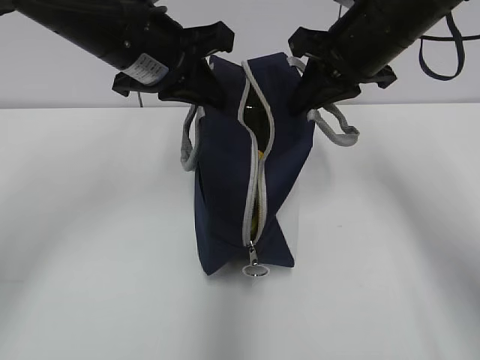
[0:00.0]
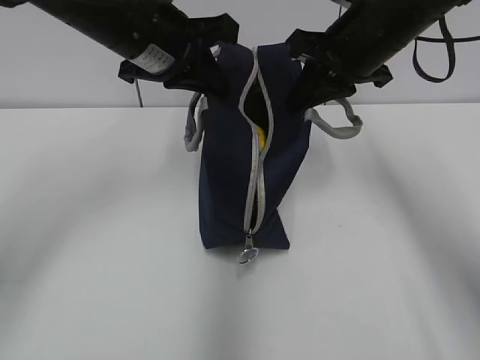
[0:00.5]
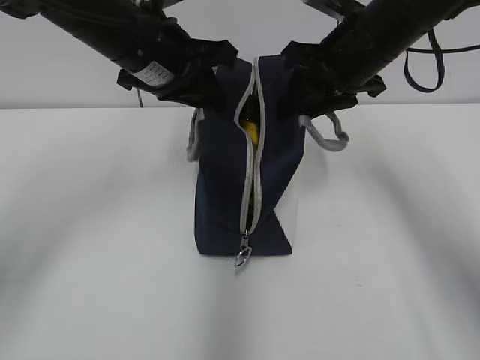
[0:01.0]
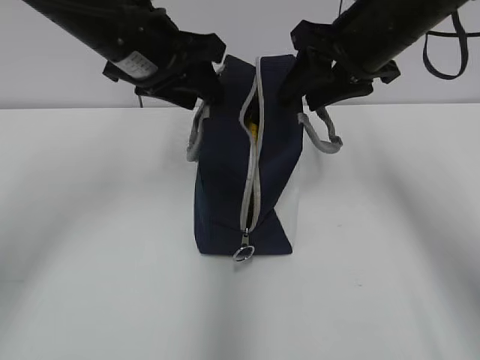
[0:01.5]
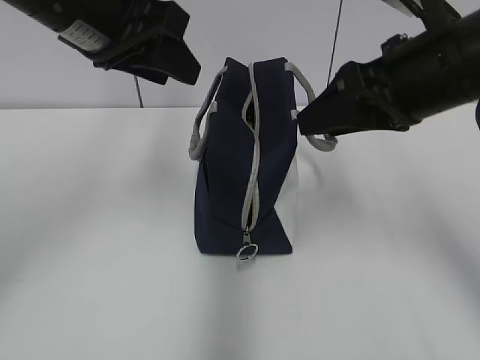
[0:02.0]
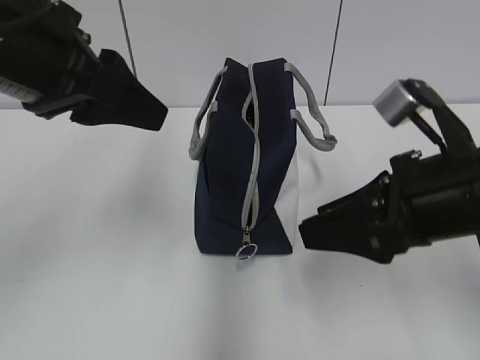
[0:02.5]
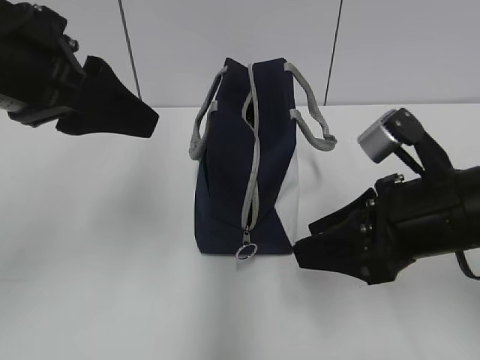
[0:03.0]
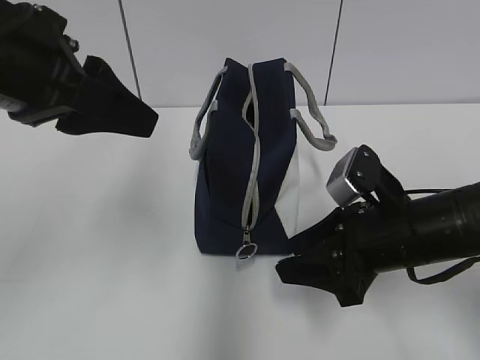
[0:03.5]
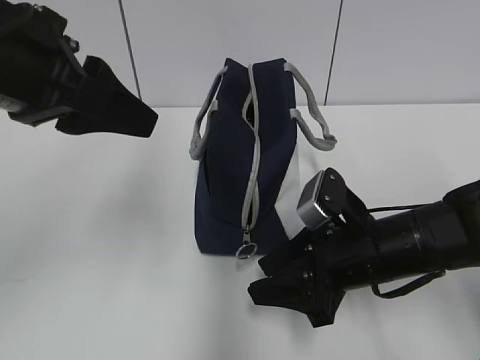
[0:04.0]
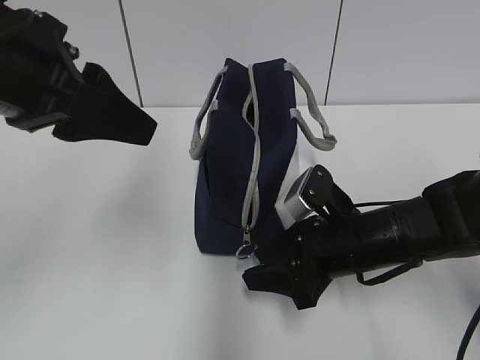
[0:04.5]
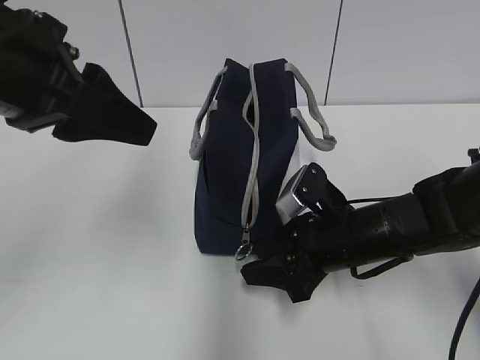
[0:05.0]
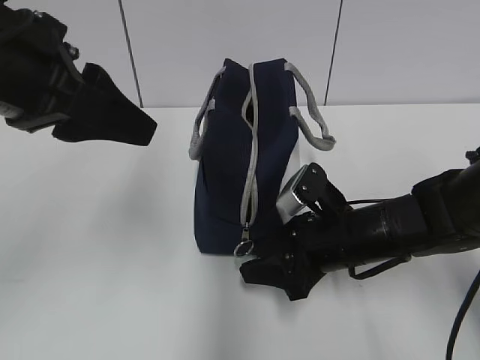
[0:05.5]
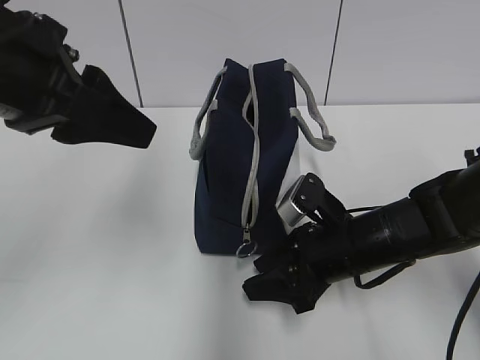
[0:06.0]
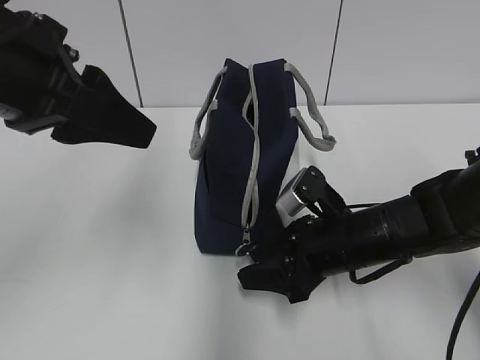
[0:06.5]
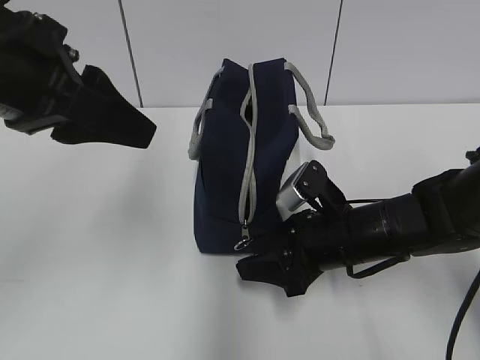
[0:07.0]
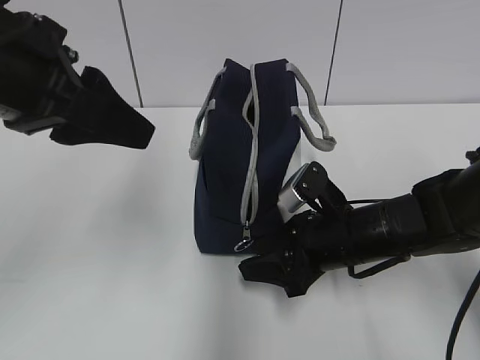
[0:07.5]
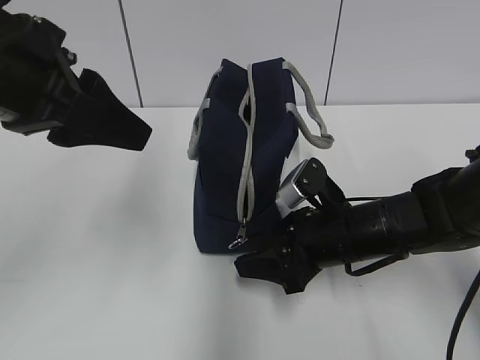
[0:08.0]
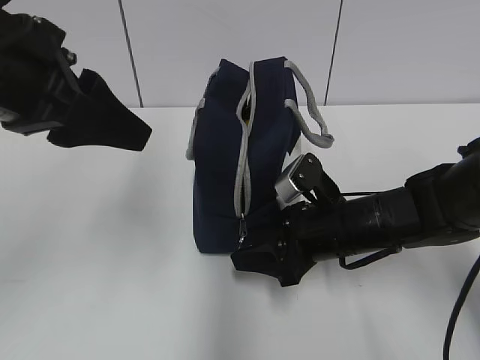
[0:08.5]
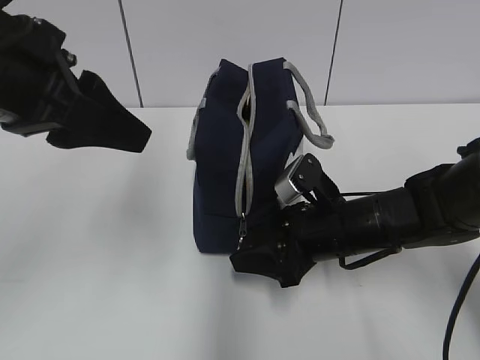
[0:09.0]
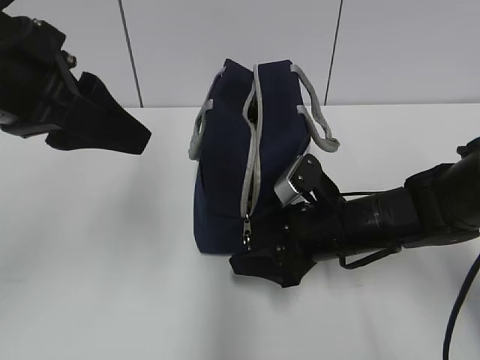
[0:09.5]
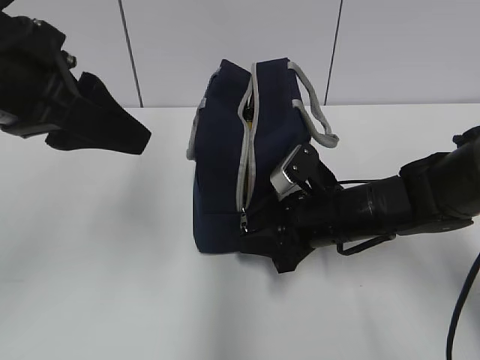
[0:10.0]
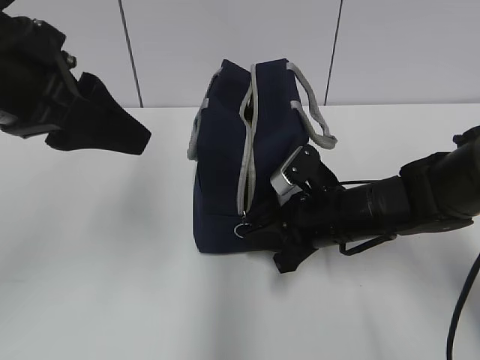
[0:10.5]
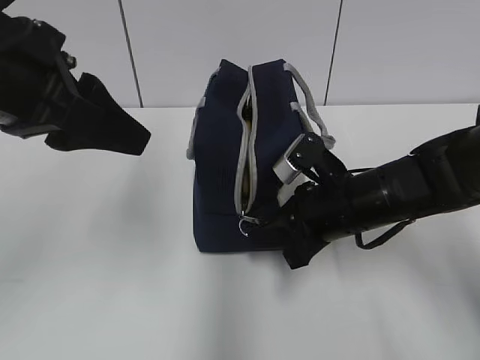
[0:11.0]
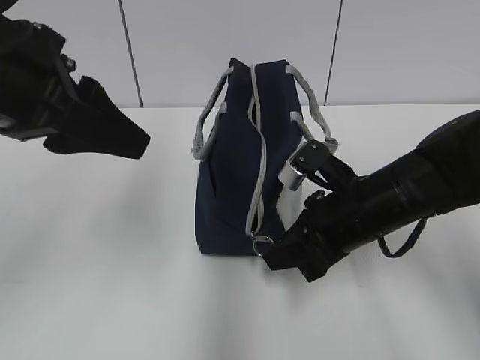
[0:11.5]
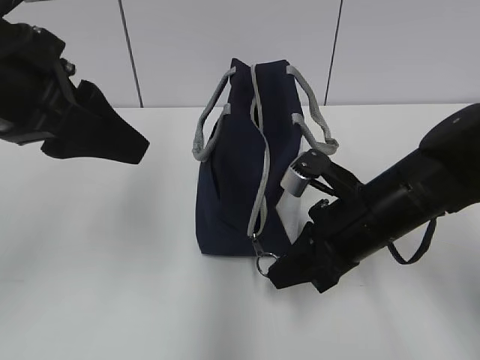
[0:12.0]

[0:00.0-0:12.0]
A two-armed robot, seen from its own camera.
0:00.0 to 0:02.0: The right gripper goes roughly 10 cm backward, and opens its fingers. Meanwhile the left gripper shifts by roughly 5 cm, and opens up.
0:02.0 to 0:04.0: The right gripper moves downward, some 20 cm, while the left gripper moves backward, approximately 10 cm.
0:04.0 to 0:08.0: The grippers make only small movements.
0:08.0 to 0:10.0: The grippers move only a little.
0:10.0 to 0:12.0: The right gripper shifts by roughly 5 cm, and closes its fingers.

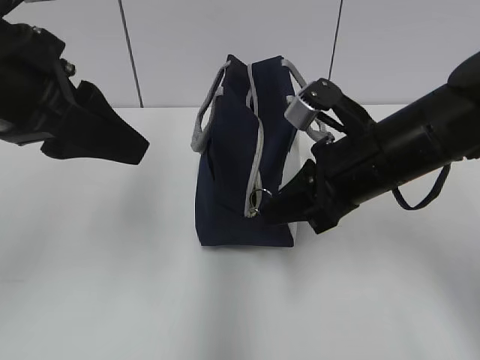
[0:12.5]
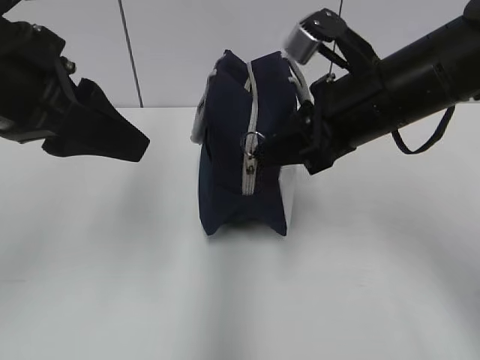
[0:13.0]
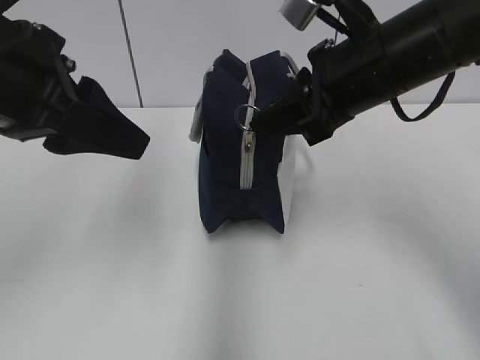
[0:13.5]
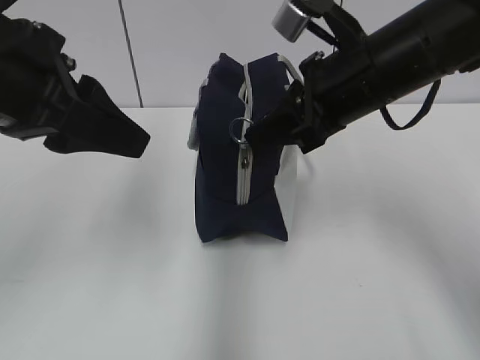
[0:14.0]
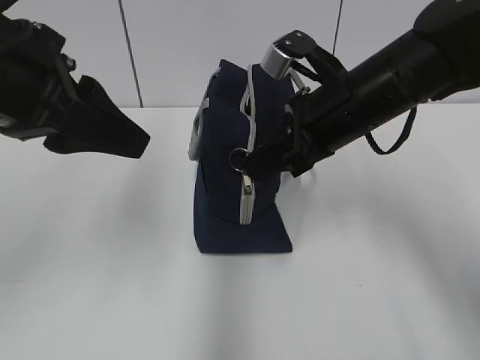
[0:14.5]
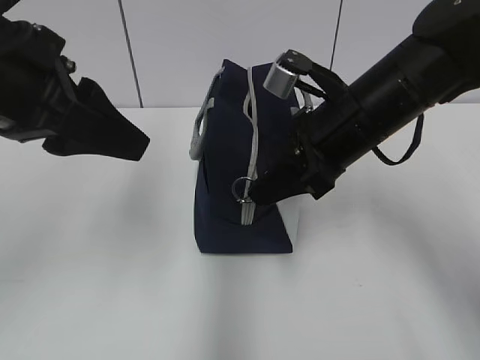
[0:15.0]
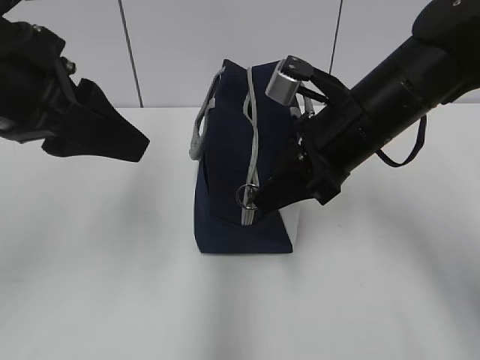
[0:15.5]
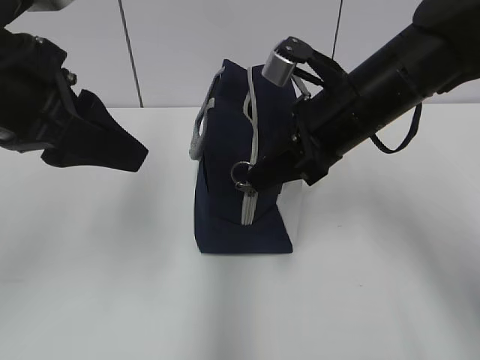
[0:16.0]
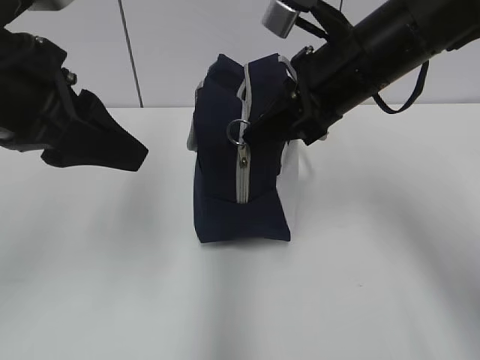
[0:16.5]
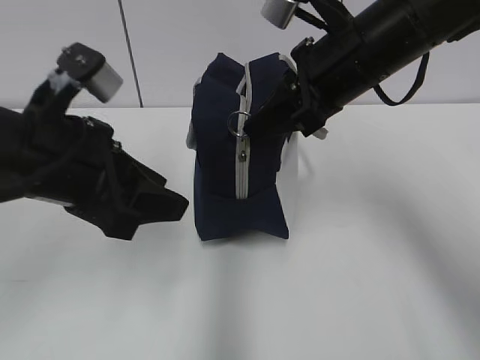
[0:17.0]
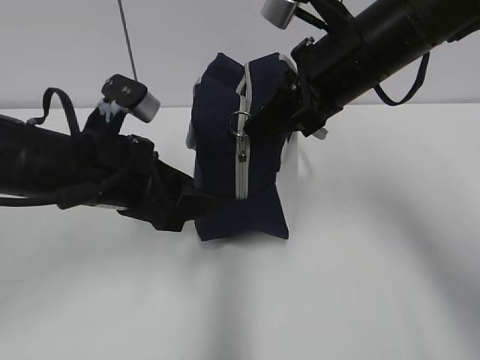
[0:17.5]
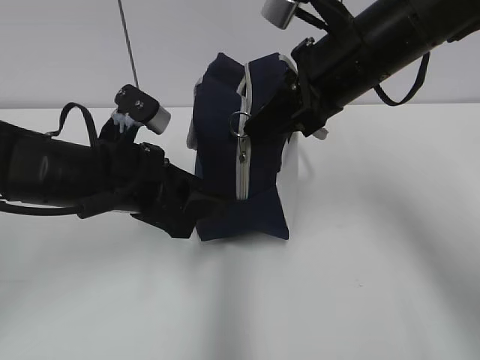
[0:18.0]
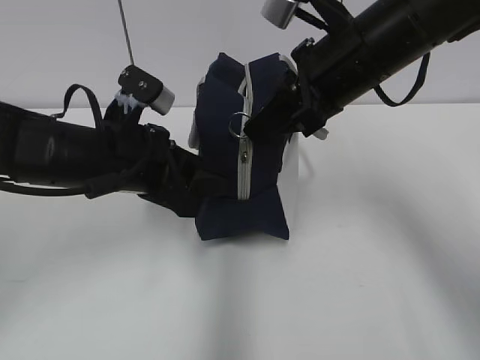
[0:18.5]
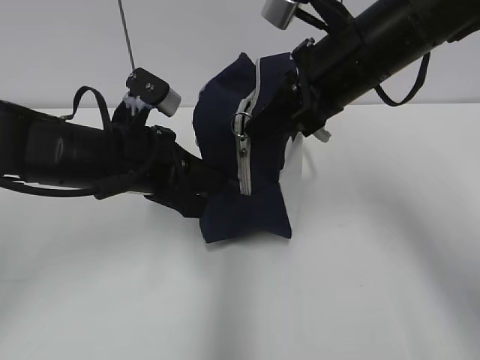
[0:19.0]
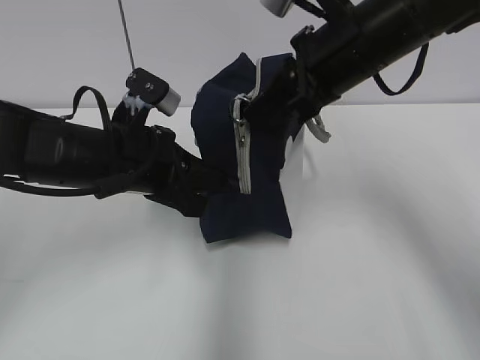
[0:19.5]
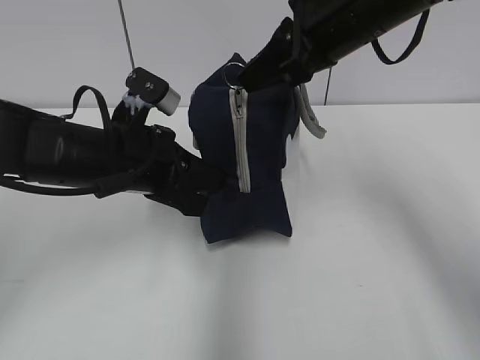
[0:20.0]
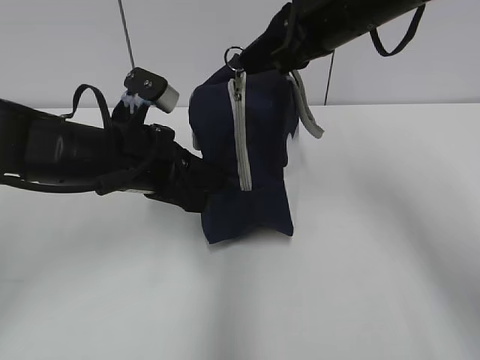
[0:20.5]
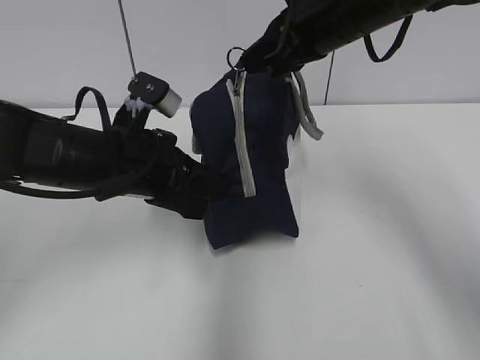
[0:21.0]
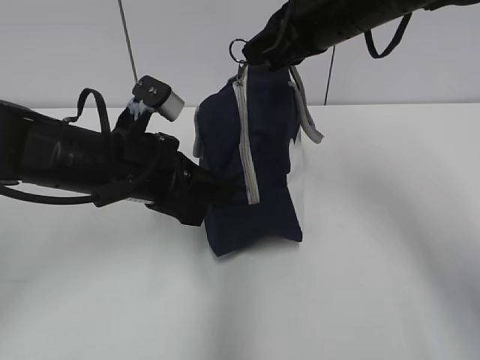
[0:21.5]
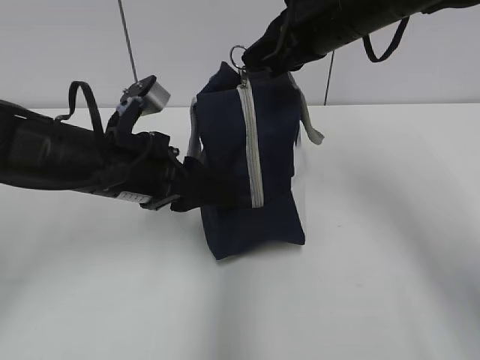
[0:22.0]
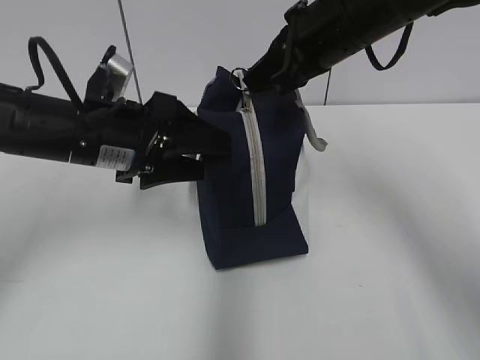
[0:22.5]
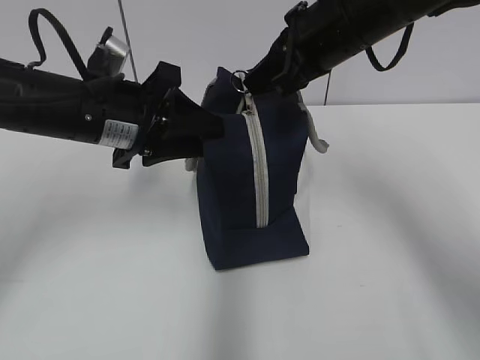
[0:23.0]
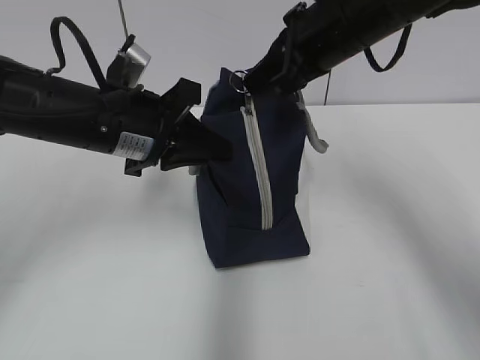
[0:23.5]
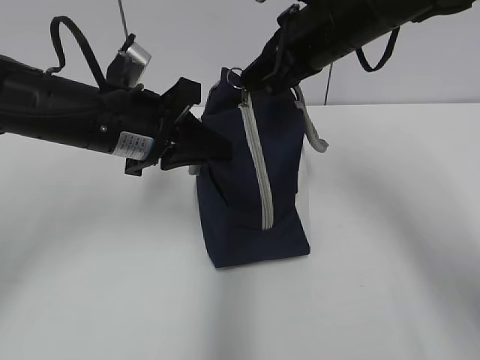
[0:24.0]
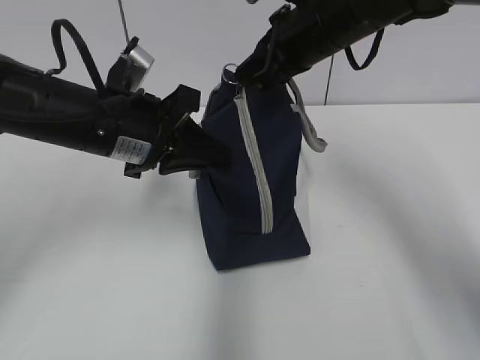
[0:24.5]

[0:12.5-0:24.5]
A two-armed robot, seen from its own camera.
Step, 0:12.5 to 0:18.5: Grab the lunch bag with your left hand.
0:12.5 to 0:14.5: The right gripper shifts by some 5 cm.
0:14.5 to 0:16.5: There are only small adjustments of the grippers.
0:16.5 to 0:18.5: The left gripper travels downward and forward by approximately 15 cm.
0:18.5 to 0:20.5: The left gripper closes.
0:20.5 to 0:22.5: The left gripper opens up.
0:22.5 to 0:24.5: The left gripper closes.

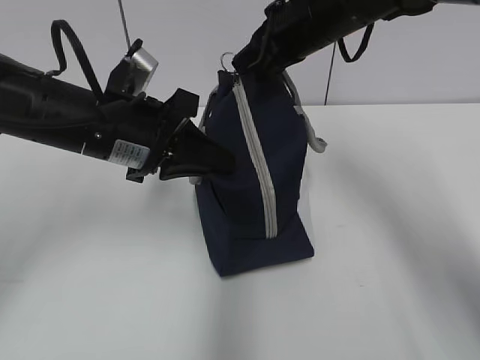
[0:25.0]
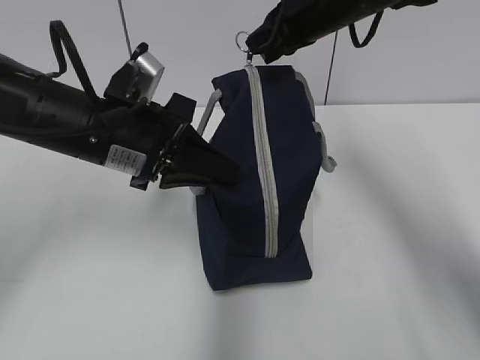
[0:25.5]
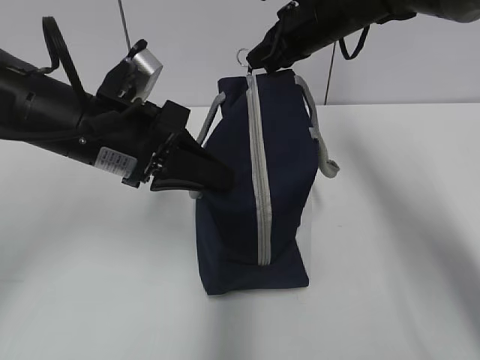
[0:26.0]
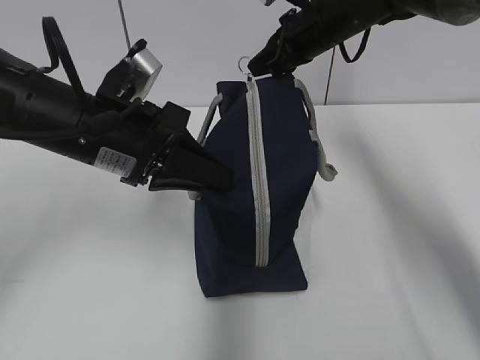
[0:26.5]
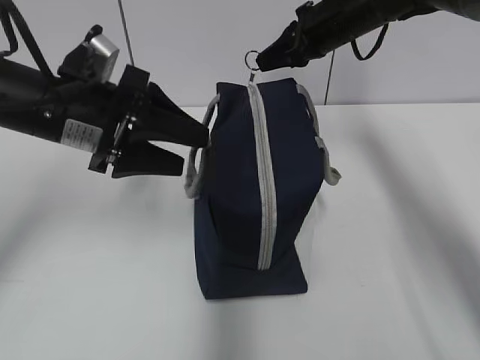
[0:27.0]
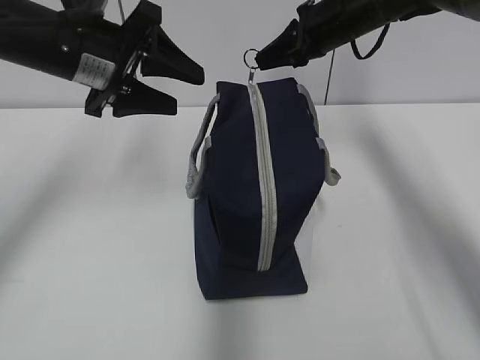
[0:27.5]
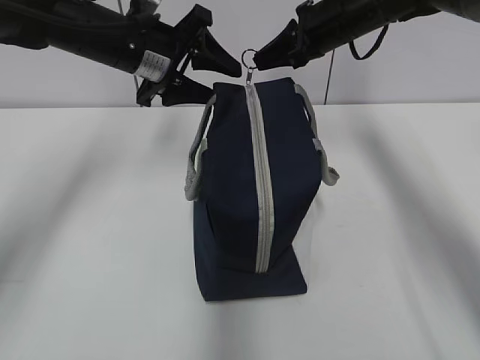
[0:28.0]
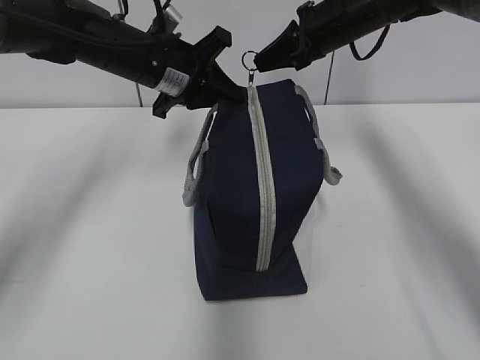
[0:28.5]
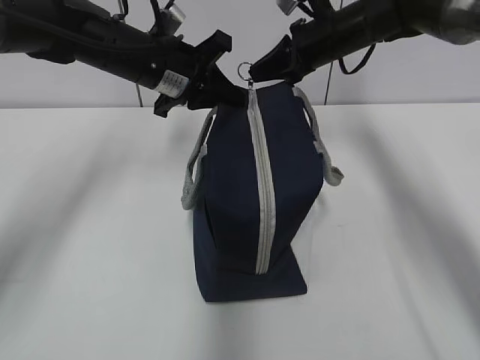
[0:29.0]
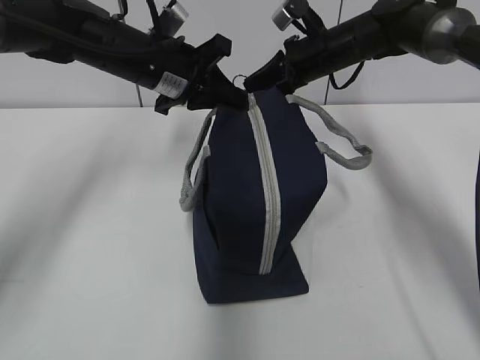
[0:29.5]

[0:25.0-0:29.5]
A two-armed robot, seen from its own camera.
0:25.0 to 0:27.0: The right gripper moves forward and to the right, approximately 10 cm. Meanwhile the left gripper opens up.
0:27.0 to 0:29.5: The right gripper shifts about 5 cm downward; the left gripper heads forward and to the right, covering some 15 cm, and closes up.
